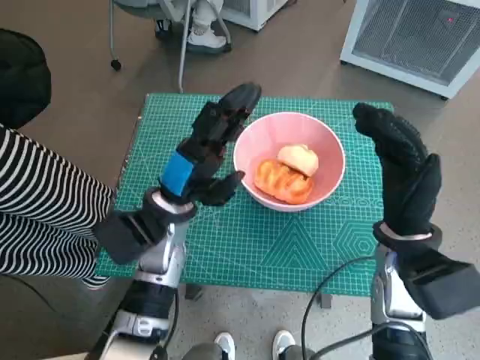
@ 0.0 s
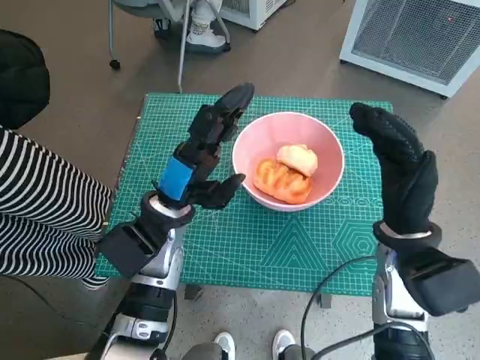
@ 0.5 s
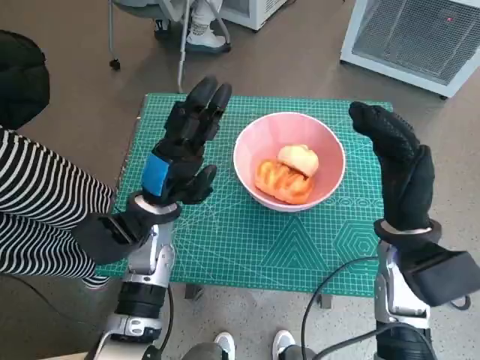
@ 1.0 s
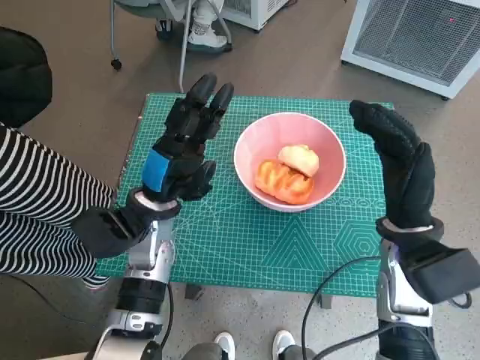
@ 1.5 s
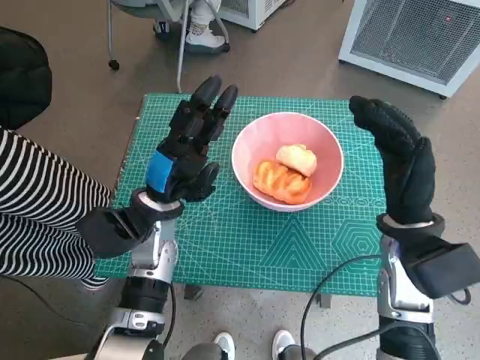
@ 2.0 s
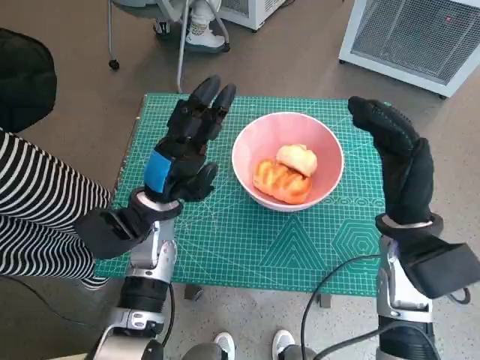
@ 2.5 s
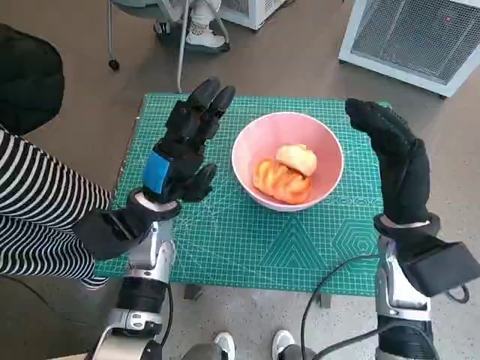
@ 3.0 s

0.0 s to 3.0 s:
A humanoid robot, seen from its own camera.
Task of the whole recording: Push the bowl into the center of the table and put the bread into the bowl.
0.0 to 1.5 s: The hands move only a little.
1.5 to 3.0 s: Both hands stay about where they are.
